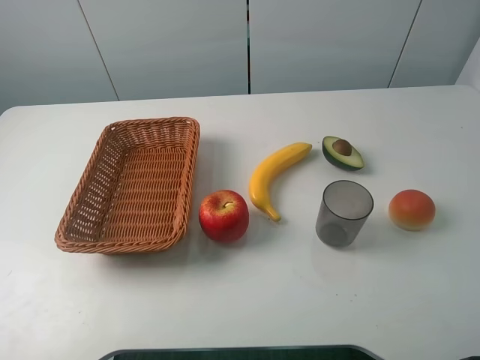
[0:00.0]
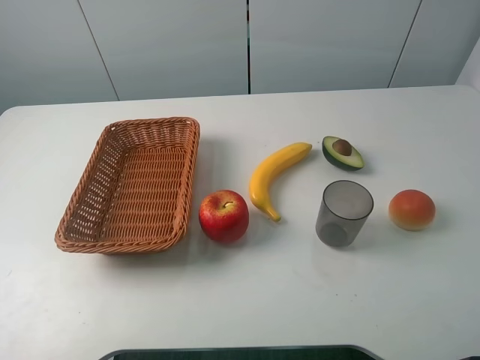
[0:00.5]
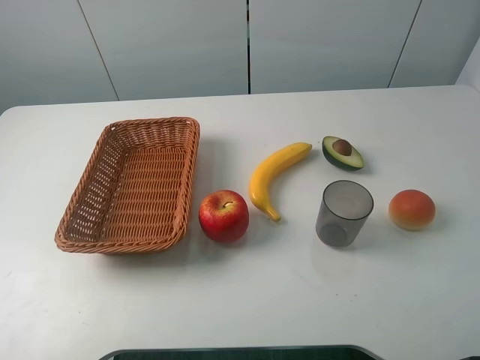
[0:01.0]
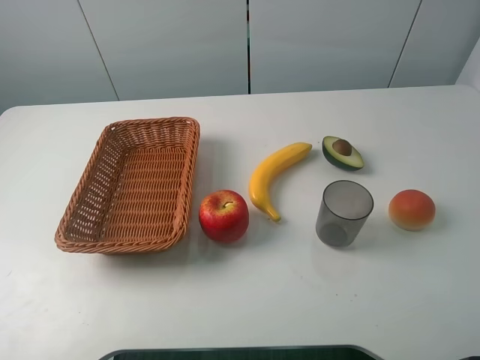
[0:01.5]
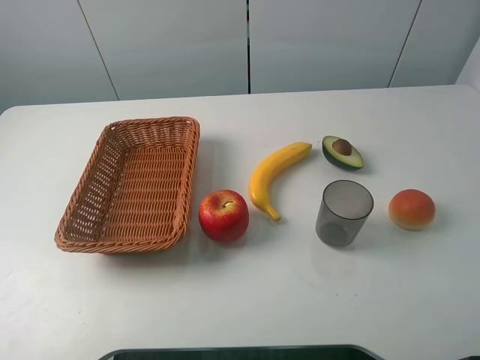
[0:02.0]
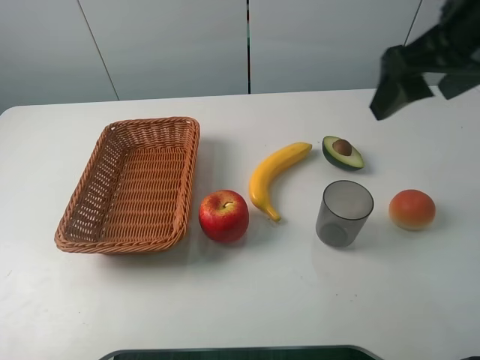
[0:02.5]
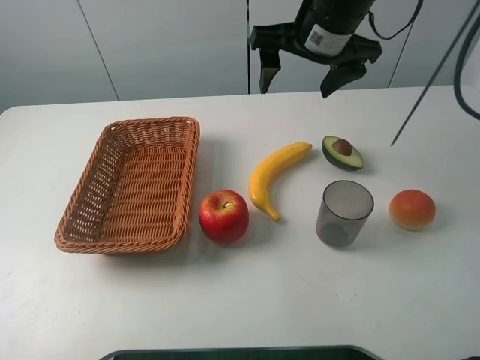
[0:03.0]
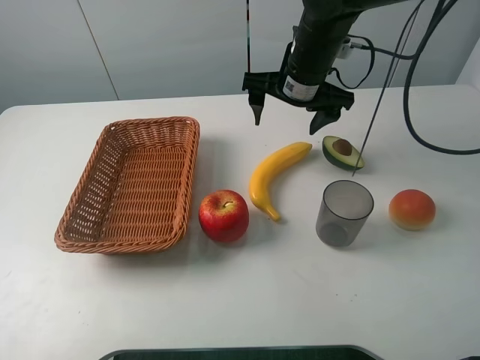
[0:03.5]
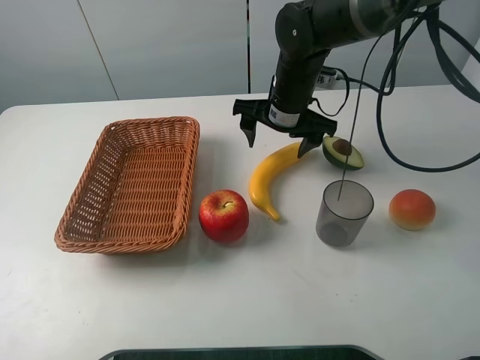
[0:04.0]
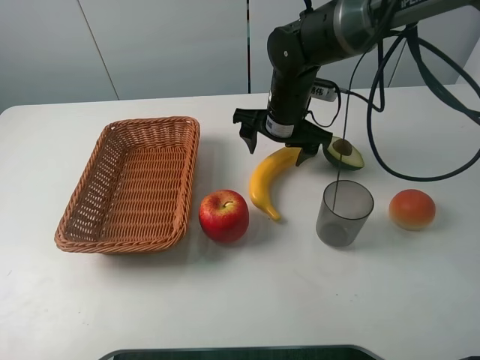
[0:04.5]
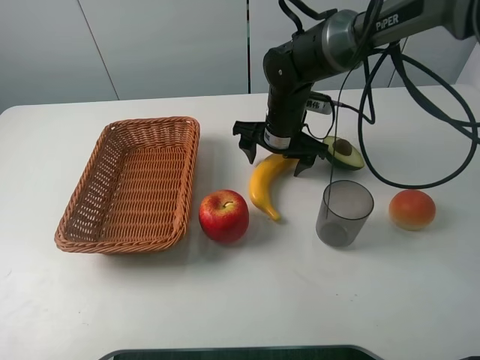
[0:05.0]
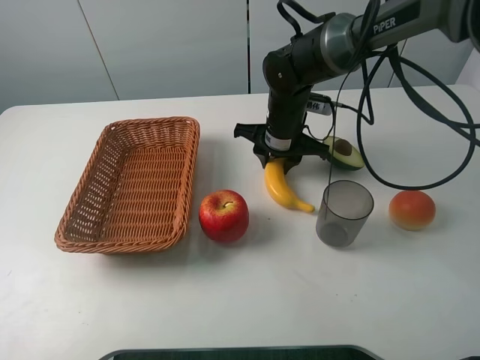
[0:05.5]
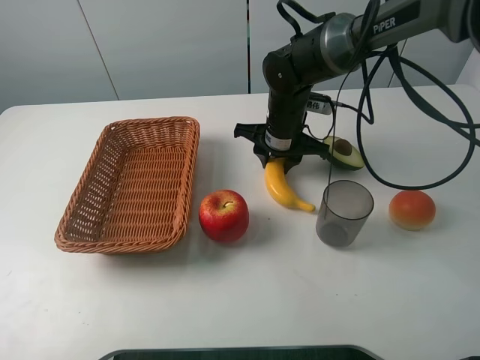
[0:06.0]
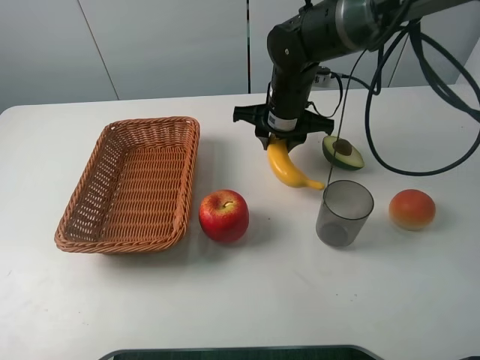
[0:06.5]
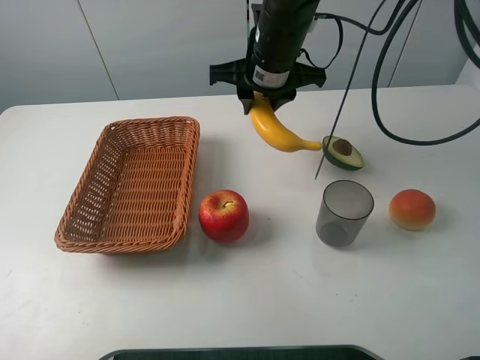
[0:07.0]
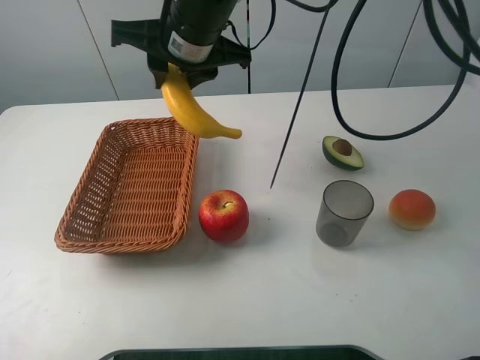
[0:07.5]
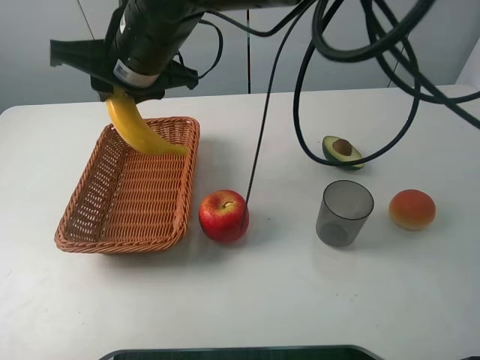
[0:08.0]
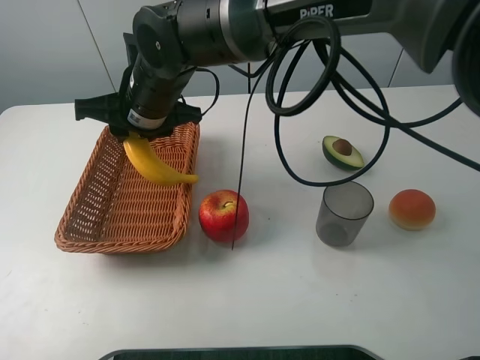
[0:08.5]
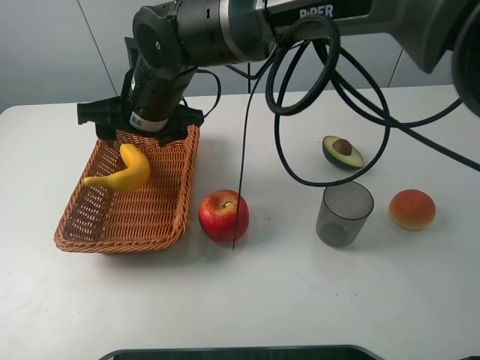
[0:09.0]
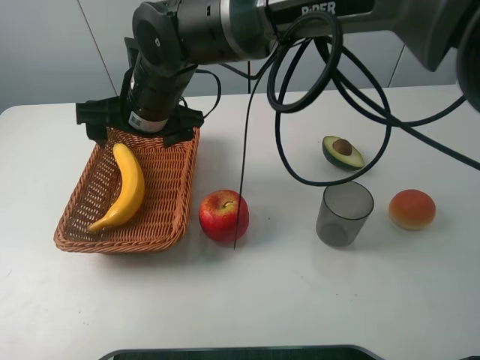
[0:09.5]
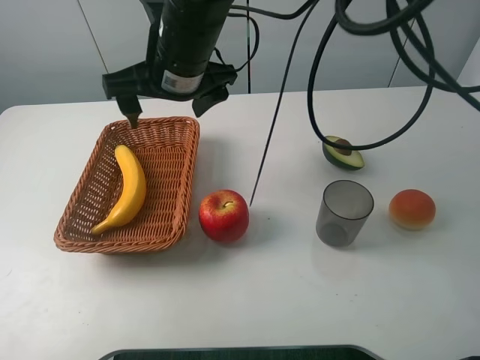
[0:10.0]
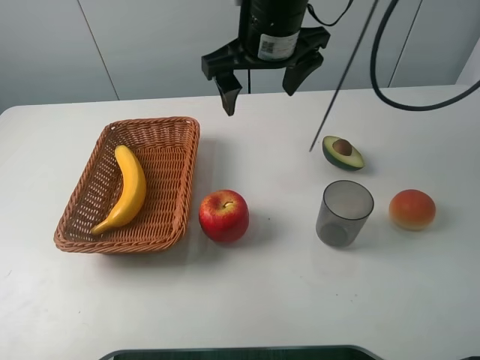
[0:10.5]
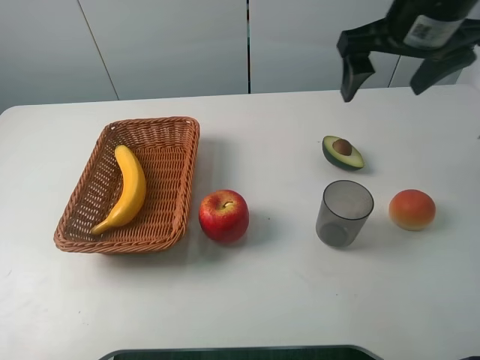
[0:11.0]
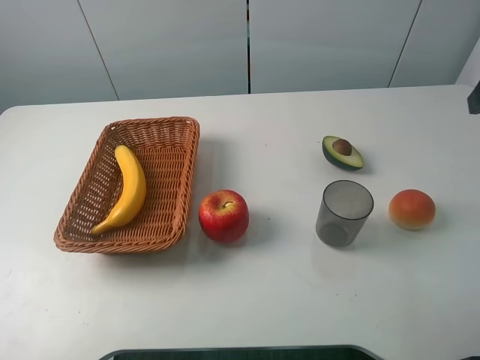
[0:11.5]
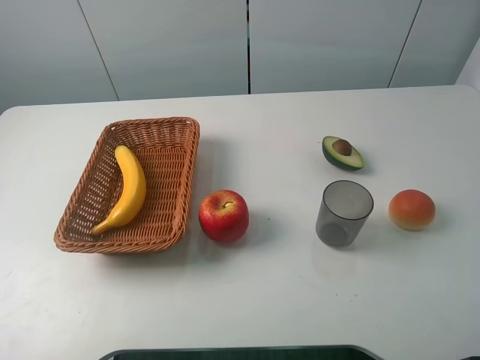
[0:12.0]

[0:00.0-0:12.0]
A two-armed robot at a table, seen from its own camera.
Task of the whole recording: randomly pick up an item from the table and put it in the basket.
Step, 0:00.0 to 0:05.5: Grasp the banana with the right gripper.
Step, 0:06.0 to 0:09.5: Place the banana into the basket with the right gripper.
0:02.0 to 0:04.0: The right gripper goes about 40 cm forward, to the left and downward.
0:04.0 to 0:06.0: The right gripper heads downward, covering some 5 cm, and closes up.
0:06.0 to 0:08.0: The right gripper is displaced to the left, upward and backward by some 25 cm.
0:08.0 to 0:10.0: The right gripper opens up.
0:10.0 to 0:12.0: The right gripper shifts about 40 cm to the right and backward.

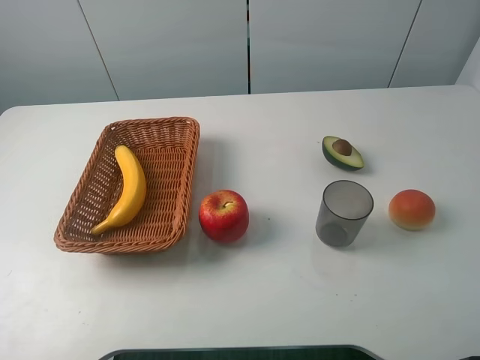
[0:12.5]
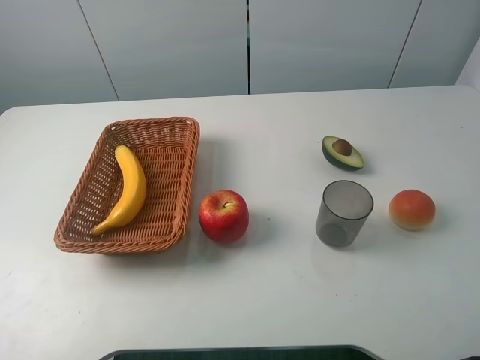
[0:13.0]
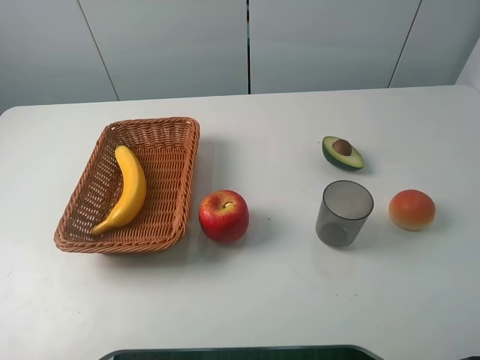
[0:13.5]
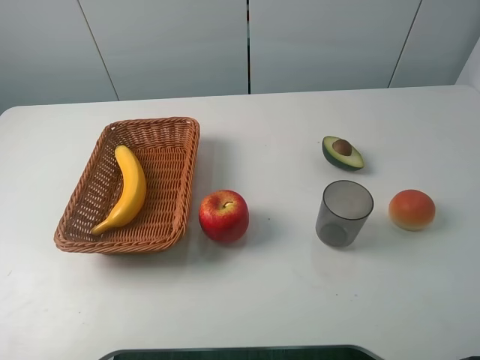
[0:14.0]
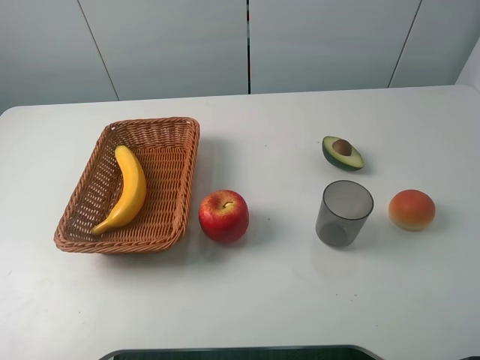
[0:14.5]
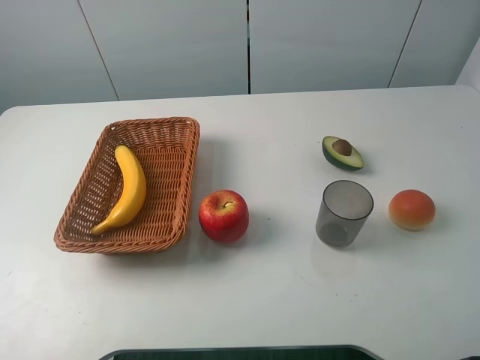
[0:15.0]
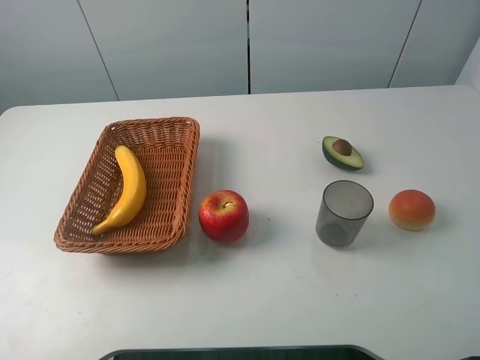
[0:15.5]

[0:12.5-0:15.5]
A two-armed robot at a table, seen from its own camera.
Task of the whole recording: randomly pick up an item from the table and put it in the basket.
0:14.0 to 0:15.5: Both grippers stay put.
